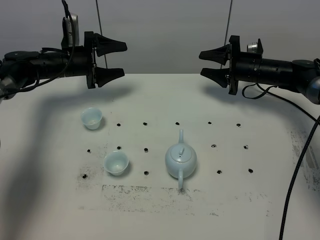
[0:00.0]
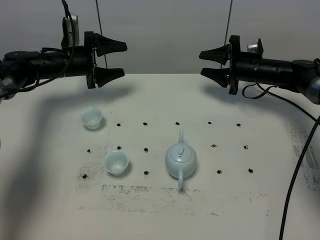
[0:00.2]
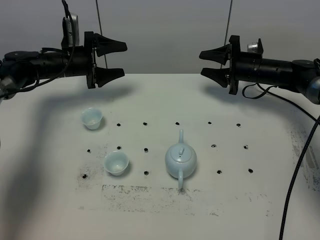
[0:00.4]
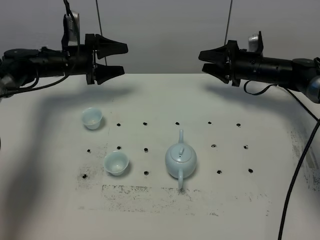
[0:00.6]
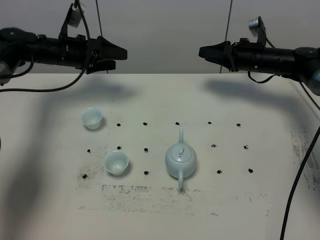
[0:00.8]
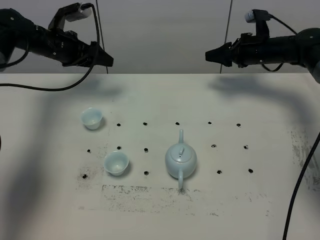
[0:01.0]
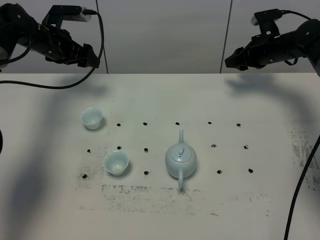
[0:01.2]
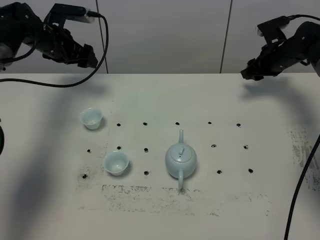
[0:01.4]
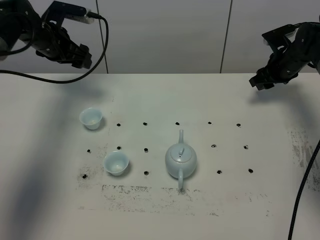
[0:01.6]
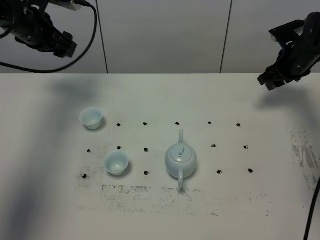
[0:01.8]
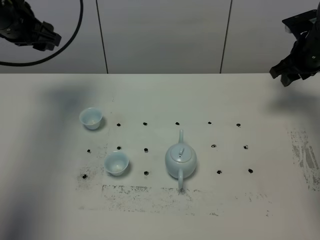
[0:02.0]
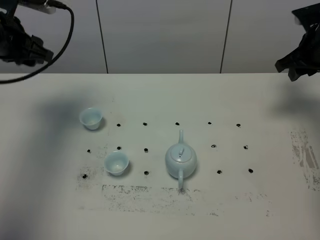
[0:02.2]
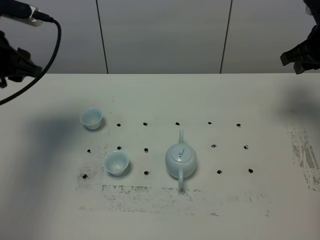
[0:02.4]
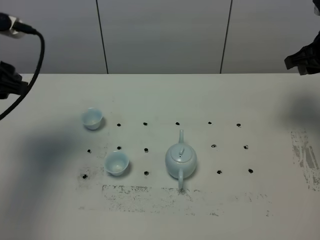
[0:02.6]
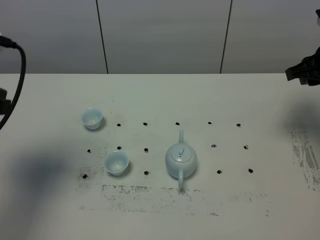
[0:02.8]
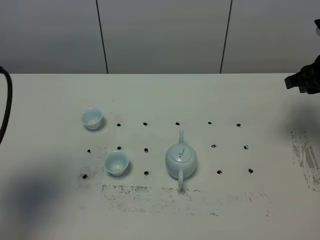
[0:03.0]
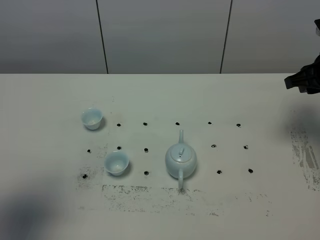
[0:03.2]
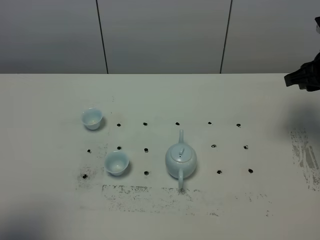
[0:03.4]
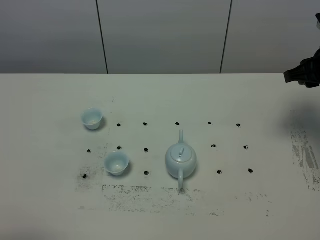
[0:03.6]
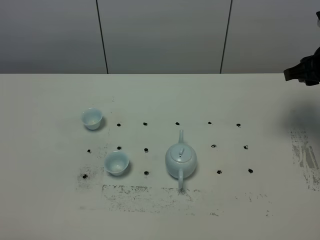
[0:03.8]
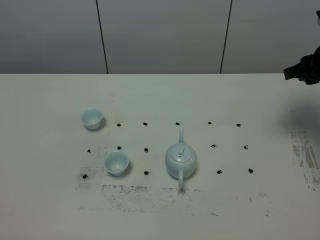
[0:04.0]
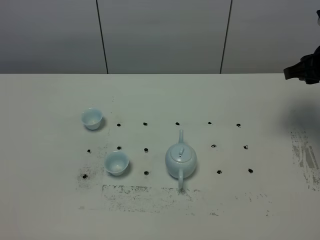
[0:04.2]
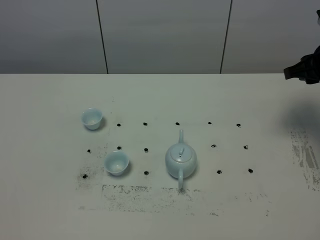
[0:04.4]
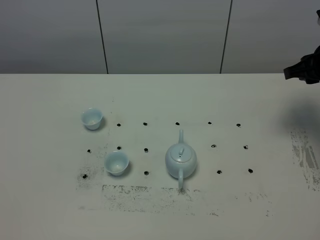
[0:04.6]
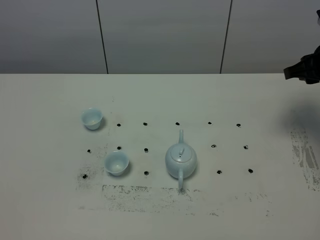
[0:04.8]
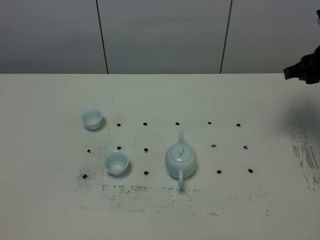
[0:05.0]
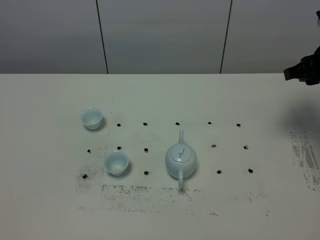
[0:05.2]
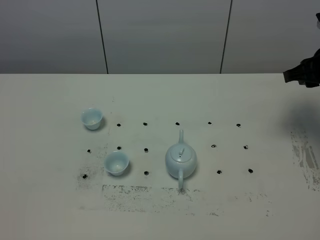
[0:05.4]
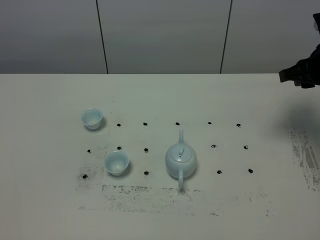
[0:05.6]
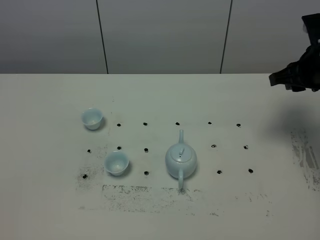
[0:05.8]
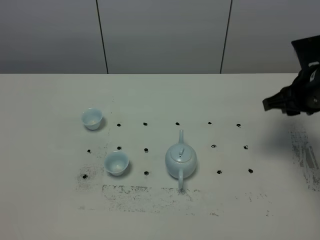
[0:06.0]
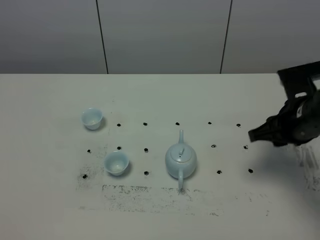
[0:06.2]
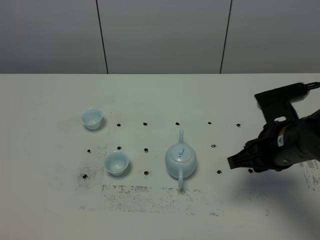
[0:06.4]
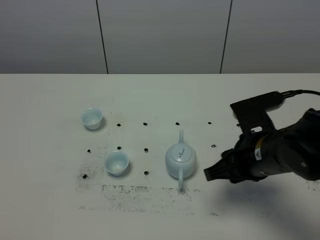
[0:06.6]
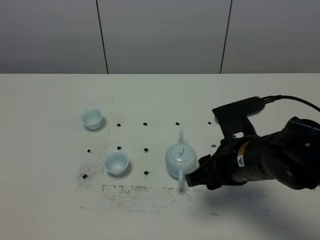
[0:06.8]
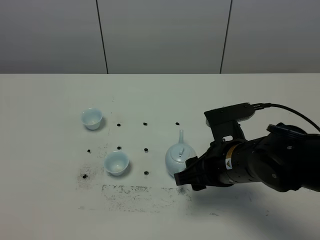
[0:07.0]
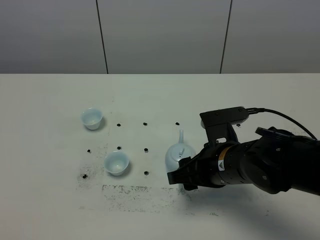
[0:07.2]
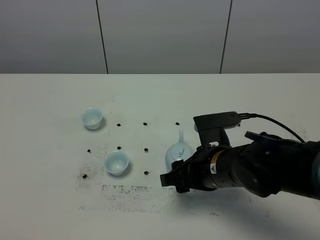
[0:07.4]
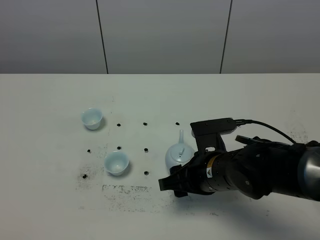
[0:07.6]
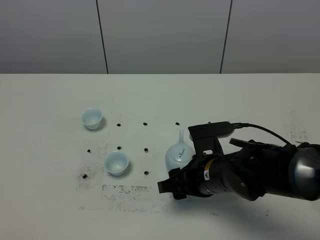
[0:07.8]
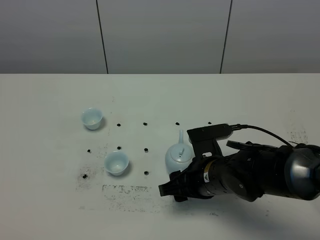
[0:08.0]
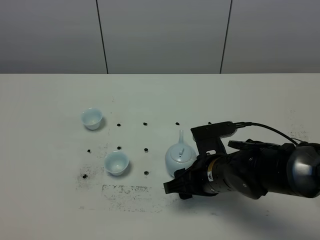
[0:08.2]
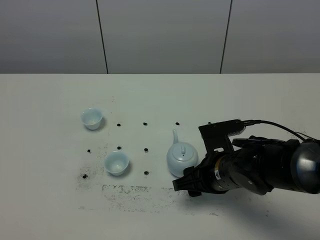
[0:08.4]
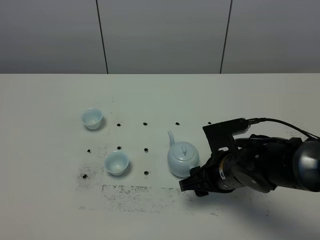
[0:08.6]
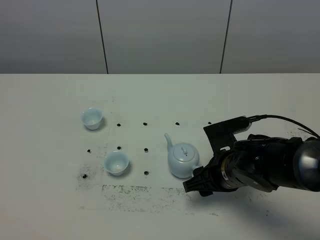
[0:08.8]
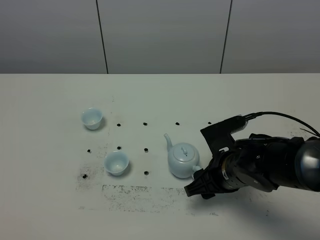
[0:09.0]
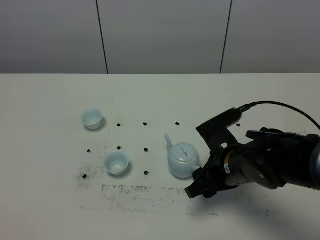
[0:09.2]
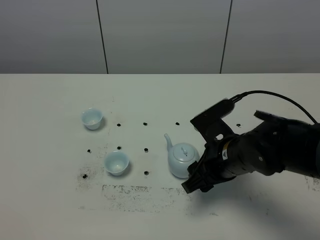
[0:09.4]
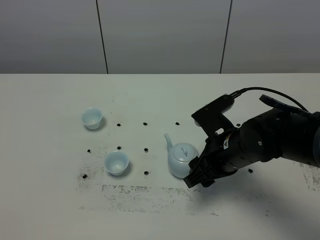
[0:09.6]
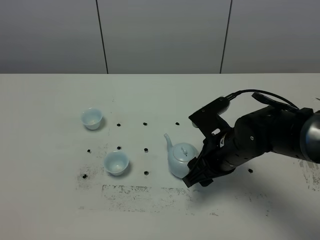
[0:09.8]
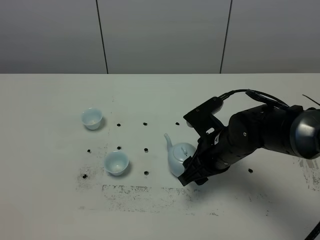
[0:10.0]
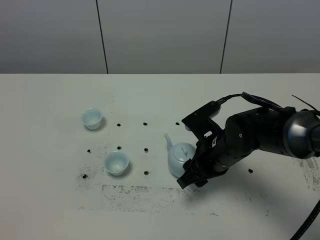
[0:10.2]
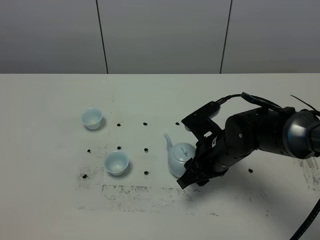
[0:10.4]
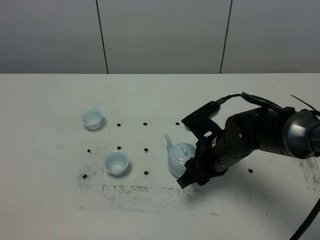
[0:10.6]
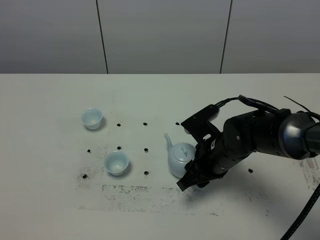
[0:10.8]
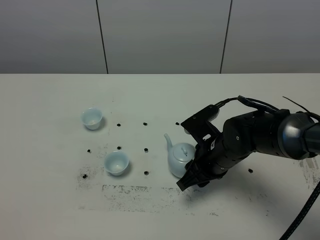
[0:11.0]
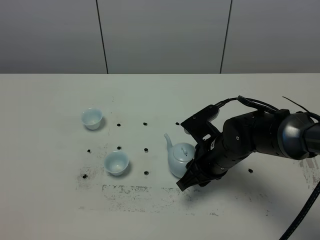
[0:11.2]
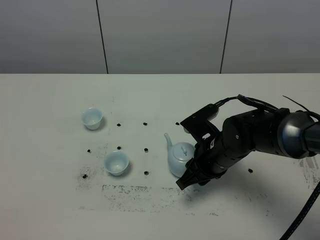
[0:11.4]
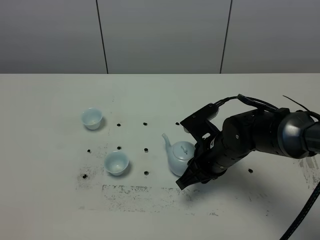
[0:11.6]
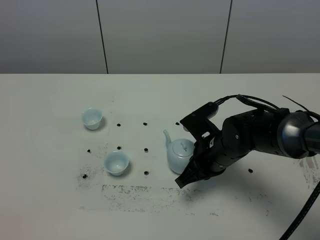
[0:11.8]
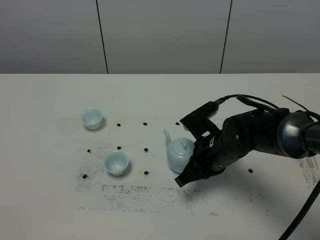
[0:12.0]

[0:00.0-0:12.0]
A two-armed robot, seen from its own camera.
Task of the whole recording: grasp the blue porcelain teapot and pour the tea into the two blue porcelain teacups one by one, put the blue porcelain teapot back in its original place.
0:00.0 to 0:01.6: The left gripper moves upward, roughly 10 cm. The right gripper moves to the right, about 5 cm.
0:01.6 to 0:03.0: The left gripper is displaced backward by approximately 35 cm, and closes its fingers, while the right gripper heads backward and upward, covering approximately 20 cm.
0:03.0 to 0:04.4: The left gripper moves backward and downward, some 20 cm.
0:04.4 to 0:06.0: The right gripper changes place by about 5 cm.
0:06.0 to 0:07.6: The right gripper is displaced to the left, backward and downward by some 20 cm, and opens its fingers.
0:07.6 to 0:09.0: The grippers move only a little.
0:09.0 to 0:10.4: There are only small adjustments of the grippers.
0:10.4 to 0:12.0: The right gripper closes its fingers.

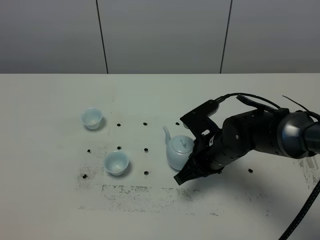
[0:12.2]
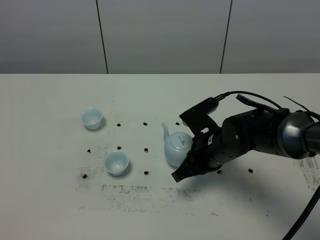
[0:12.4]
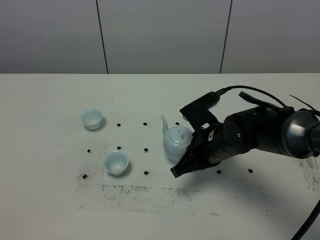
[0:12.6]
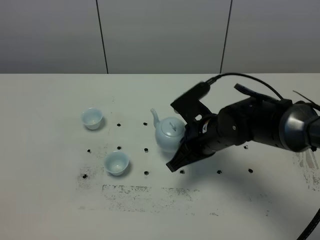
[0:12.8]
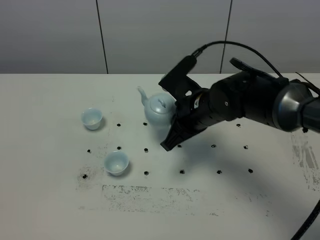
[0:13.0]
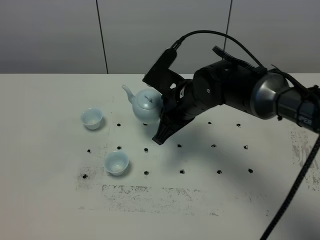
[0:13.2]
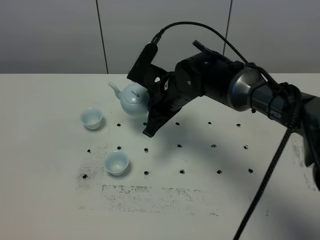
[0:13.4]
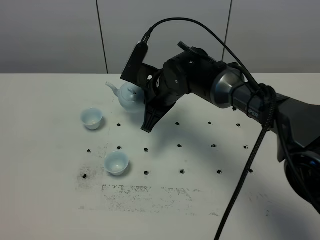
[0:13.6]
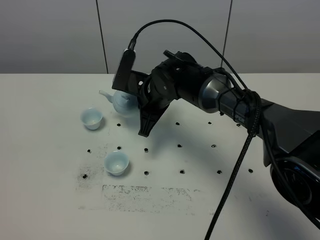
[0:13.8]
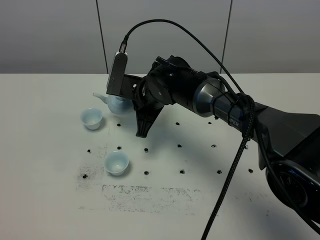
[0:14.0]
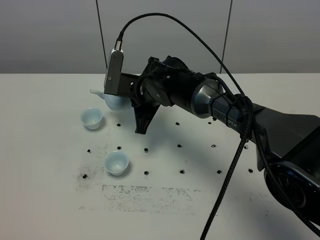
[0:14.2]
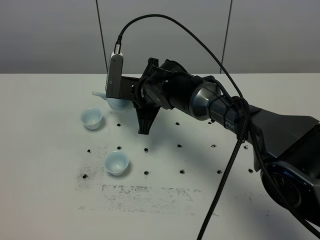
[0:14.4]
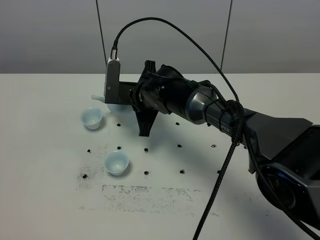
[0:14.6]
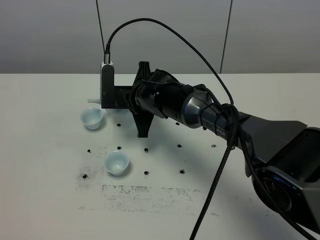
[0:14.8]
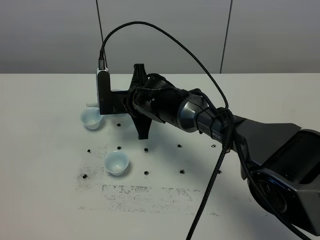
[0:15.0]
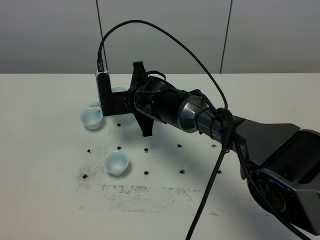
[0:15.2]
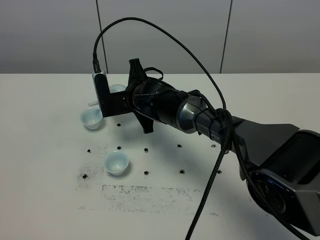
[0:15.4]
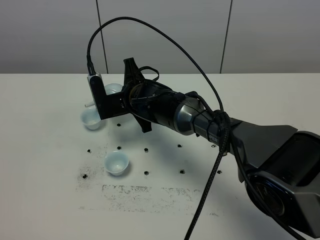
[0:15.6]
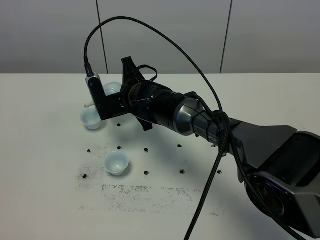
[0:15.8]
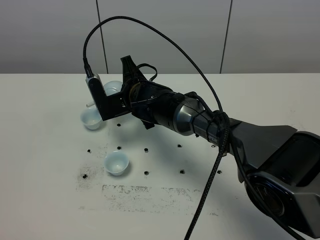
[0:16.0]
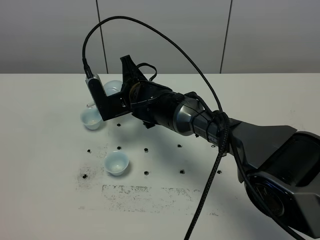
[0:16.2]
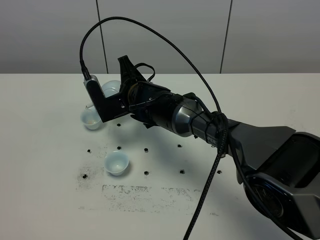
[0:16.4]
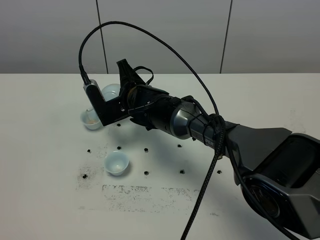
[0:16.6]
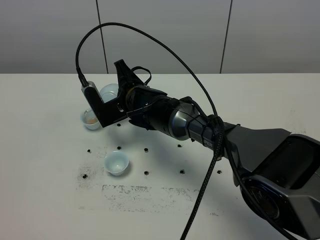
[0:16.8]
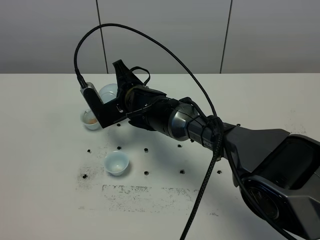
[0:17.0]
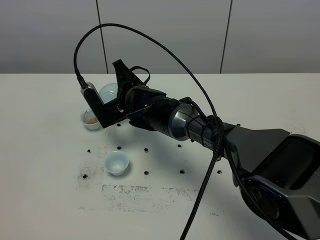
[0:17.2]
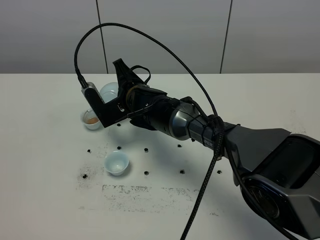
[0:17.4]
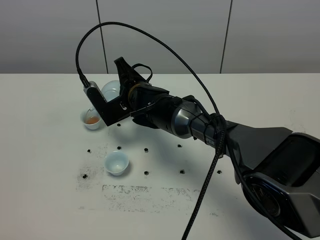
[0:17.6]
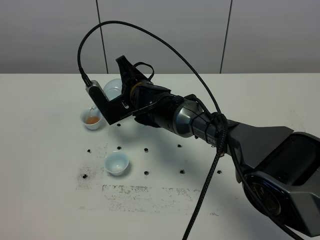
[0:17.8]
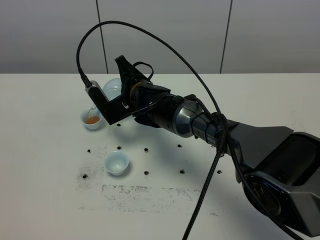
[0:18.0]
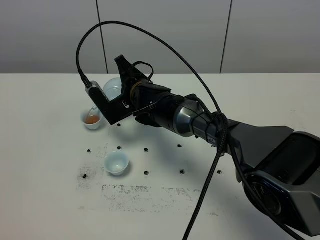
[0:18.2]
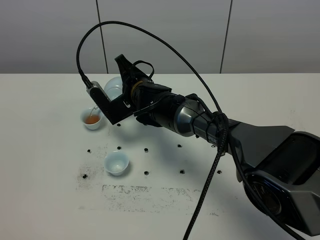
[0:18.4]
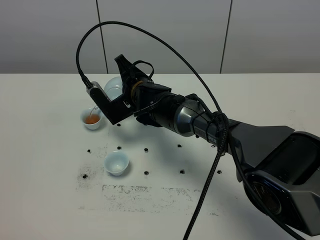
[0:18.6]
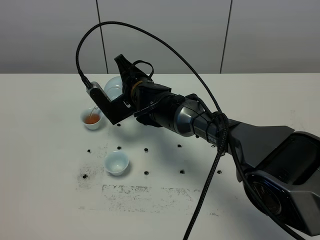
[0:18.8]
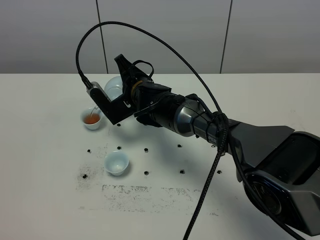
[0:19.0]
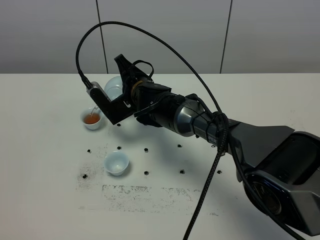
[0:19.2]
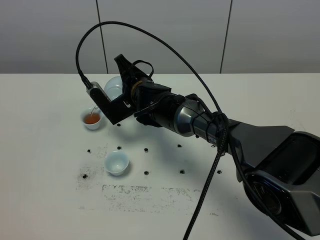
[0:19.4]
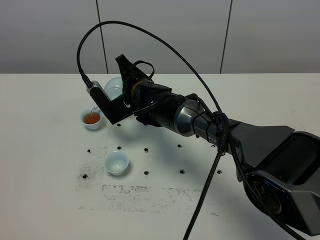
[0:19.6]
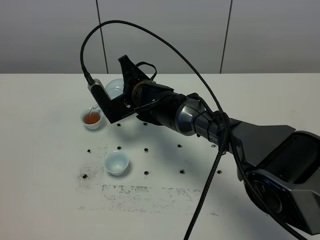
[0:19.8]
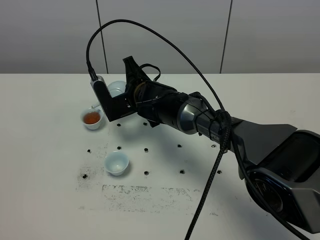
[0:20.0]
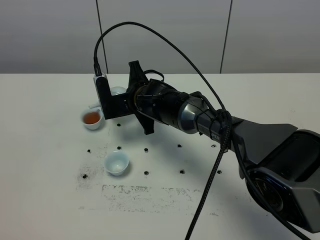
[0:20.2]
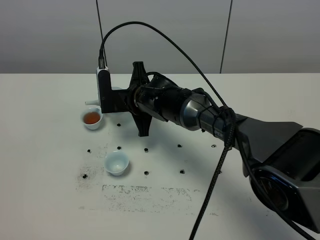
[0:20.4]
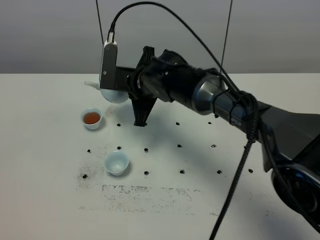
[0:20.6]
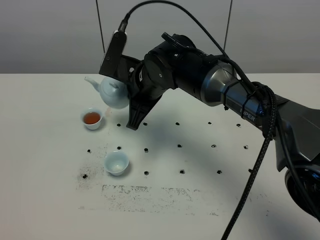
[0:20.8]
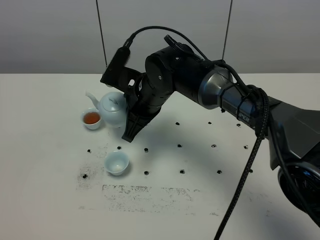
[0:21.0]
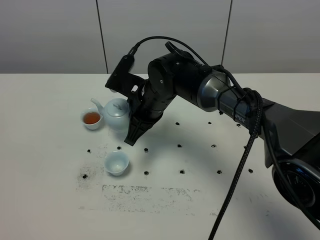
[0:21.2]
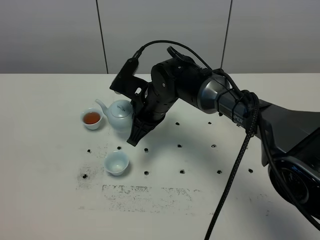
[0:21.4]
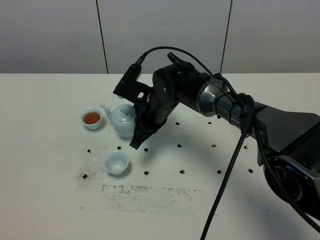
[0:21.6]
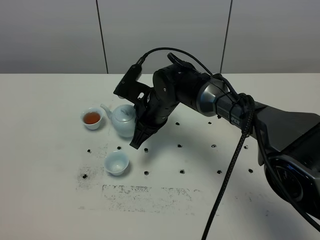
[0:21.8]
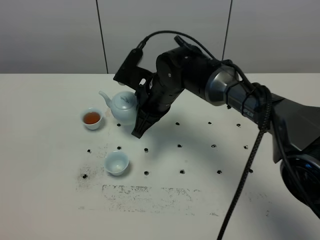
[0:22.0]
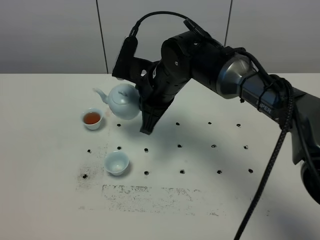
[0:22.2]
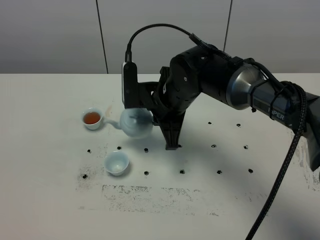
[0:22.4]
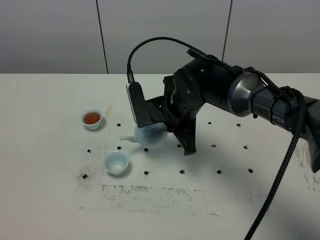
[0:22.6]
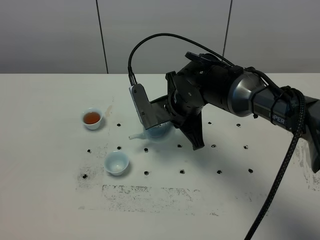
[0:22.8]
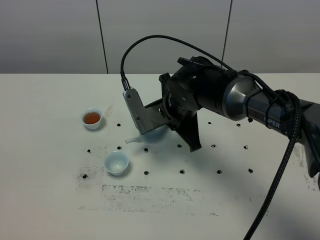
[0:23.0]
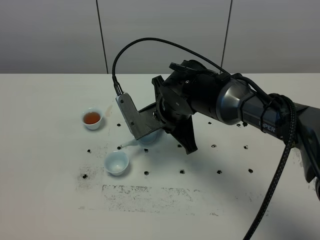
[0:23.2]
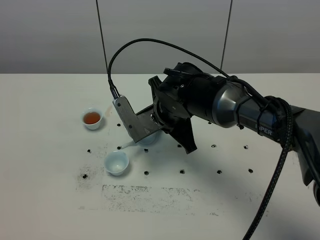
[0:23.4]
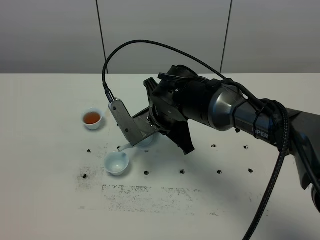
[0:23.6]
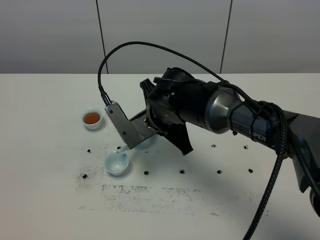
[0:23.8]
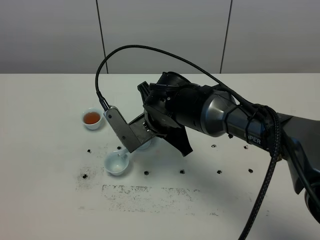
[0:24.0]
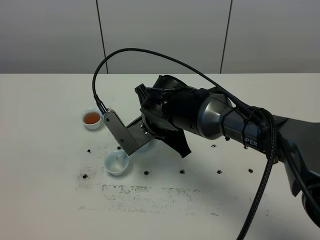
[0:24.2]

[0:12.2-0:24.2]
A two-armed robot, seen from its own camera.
Task of the whole recording: grasp the blue porcelain teapot and pour the tea into the two blue porcelain teacups one by one, put the blue porcelain teapot back in its original place.
Step, 0:13.0 to 0:20.2: Pour tea into the teacup with the right gripper.
0:12.2 to 0:13.8: The right gripper shifts some 15 cm to the left and forward.
0:15.2 to 0:16.6: The grippers make only small movements.
0:16.6 to 0:18.2: The grippers stay close to where they were, moving slightly.
0:18.2 to 0:19.8: Both grippers stay about where they are.
0:21.2 to 0:22.6: The right gripper is displaced to the right by some 5 cm.
